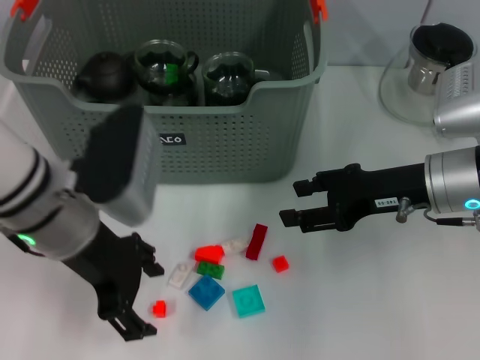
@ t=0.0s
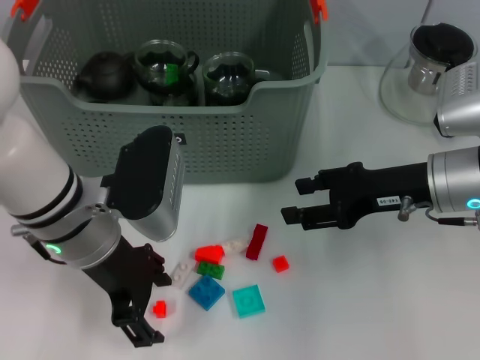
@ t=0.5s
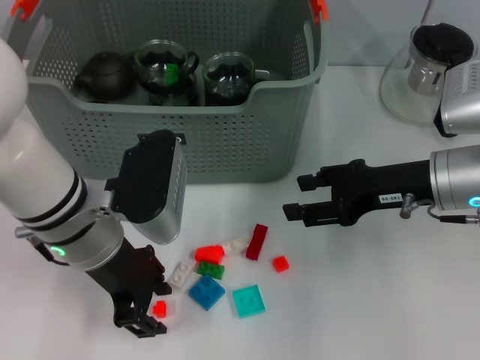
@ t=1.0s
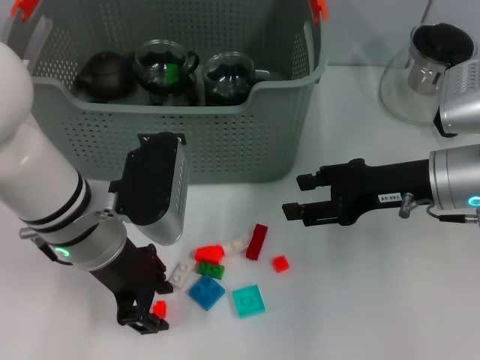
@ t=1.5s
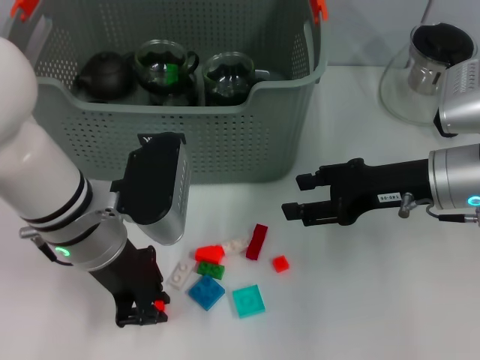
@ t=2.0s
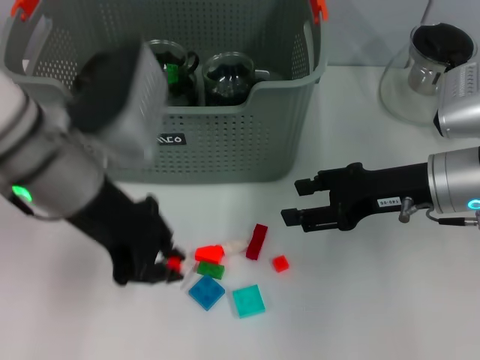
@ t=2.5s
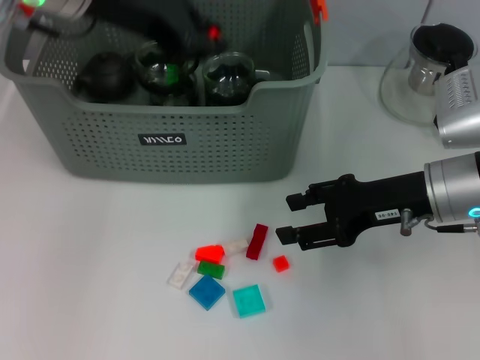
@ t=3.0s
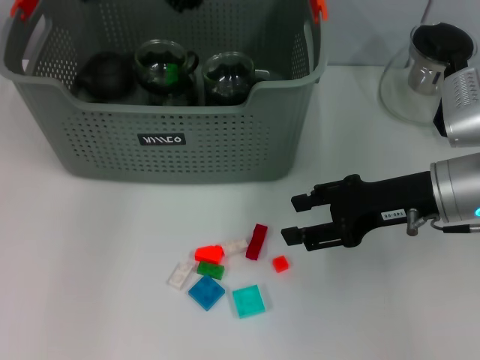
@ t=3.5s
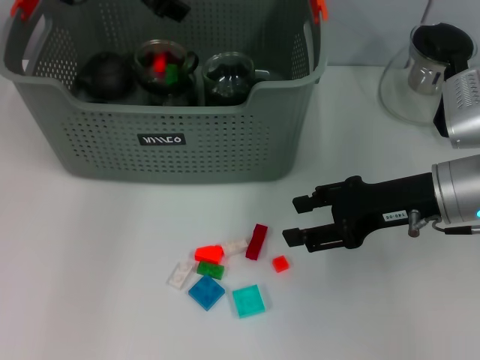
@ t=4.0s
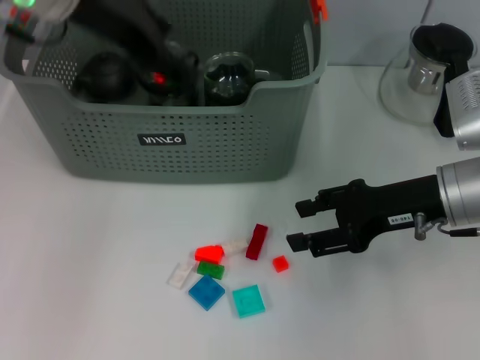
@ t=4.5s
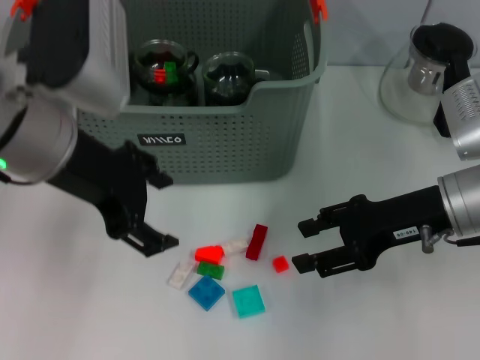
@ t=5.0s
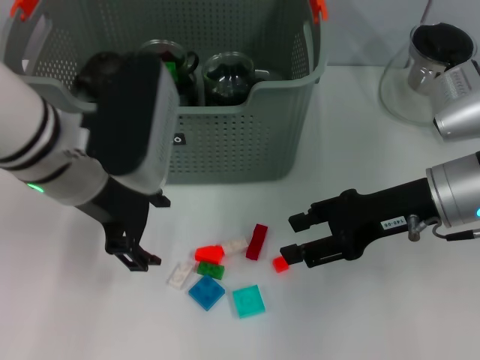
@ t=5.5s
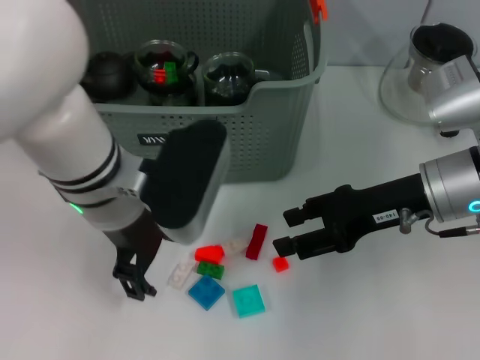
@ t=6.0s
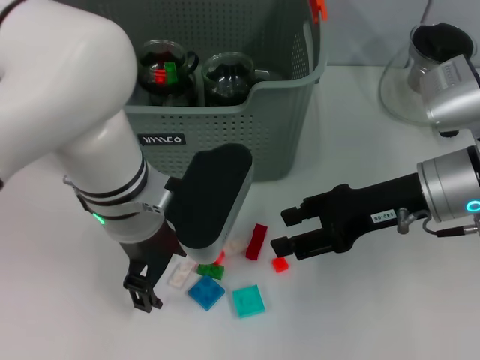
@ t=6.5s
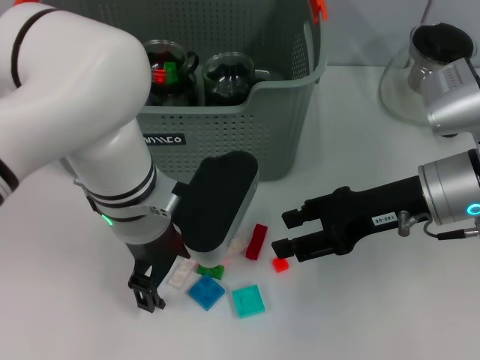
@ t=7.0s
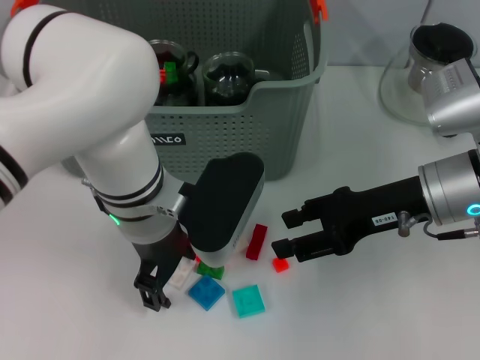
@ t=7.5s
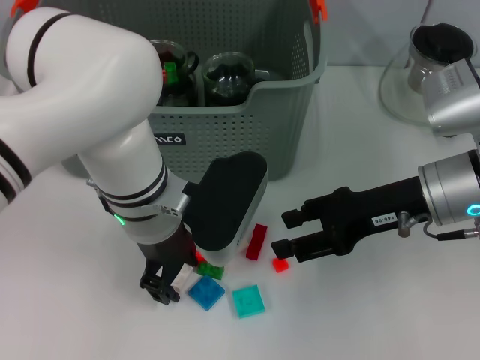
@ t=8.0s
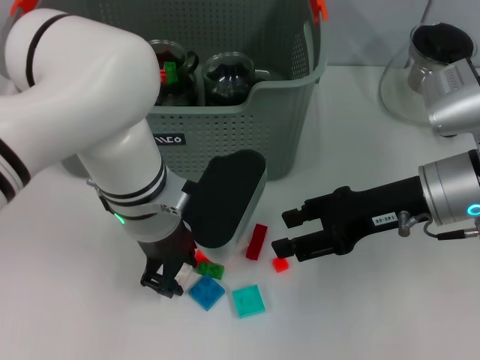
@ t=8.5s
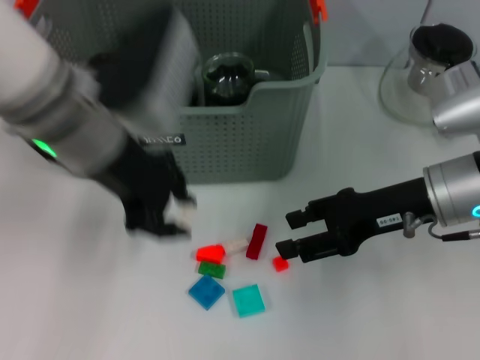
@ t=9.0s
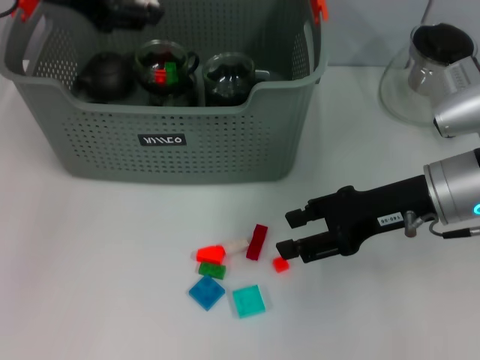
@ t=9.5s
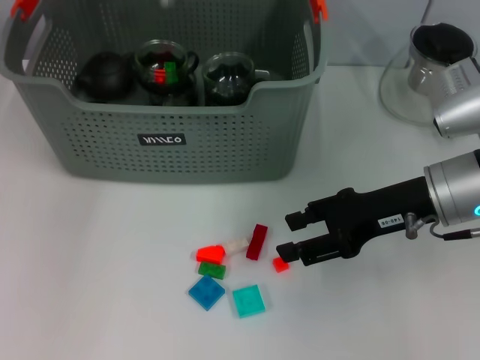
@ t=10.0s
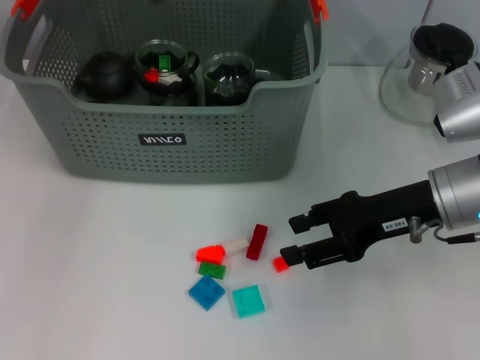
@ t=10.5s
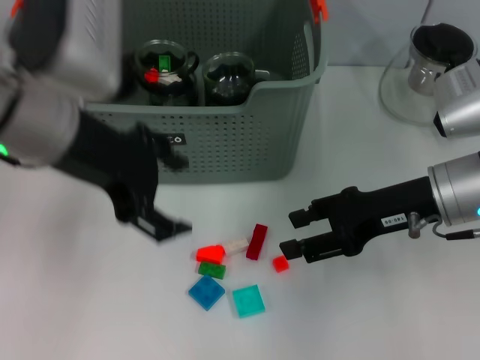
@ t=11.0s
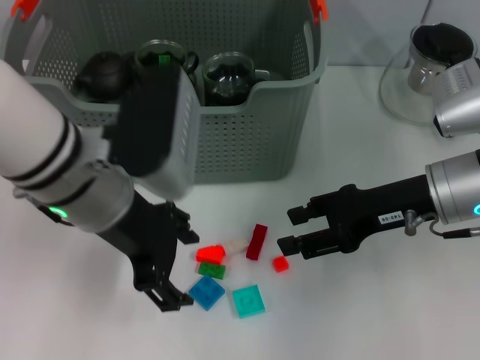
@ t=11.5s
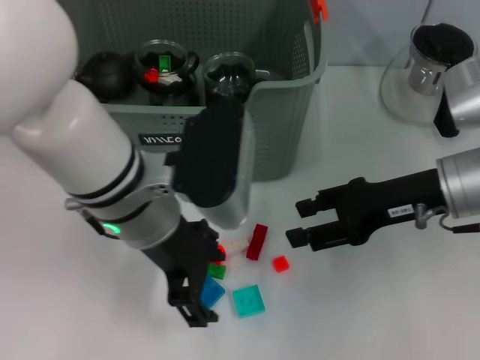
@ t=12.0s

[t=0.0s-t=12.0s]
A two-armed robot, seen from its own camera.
Task of the whole recording: pick up the teacup on the table and place it into the storage bin, pick up the block on the table and place it into the storage bin.
Step, t=2.0s to t=3.5s: Place the orange block in the storage box with left gripper.
Step, t=4.5s to t=8.0s: Grasp the white block with left gripper.
Step, t=8.5s to t=10.0s: Place the white block in the storage box with left gripper.
t=0.0s to t=2.0s: The left gripper closes up.
t=2.0s to t=4.0s: The left gripper shifts some 20 cm forward and upward.
t=4.0s to t=6.0s: The left gripper heads backward and downward, covering about 20 cm, and opens.
t=8.0s to t=10.0s: The left gripper shifts some 25 cm upward, forward and to the left.
t=10.0s to t=12.0s: The left gripper goes approximately 20 cm backward, downward and to the right, and opens up.

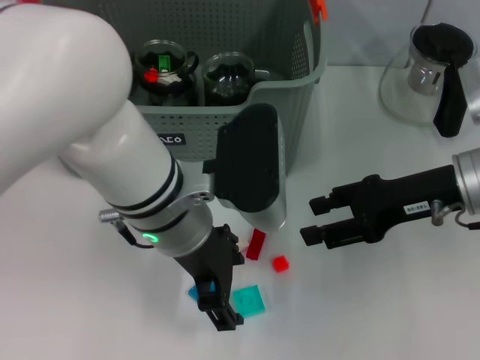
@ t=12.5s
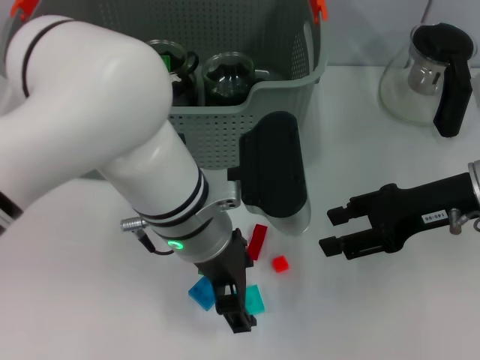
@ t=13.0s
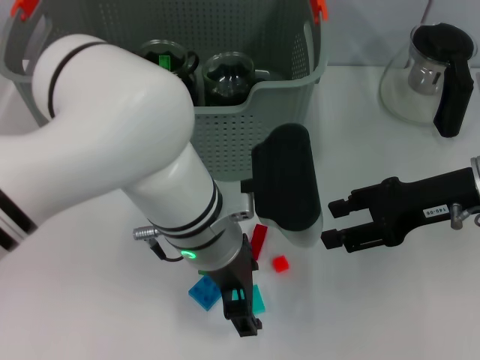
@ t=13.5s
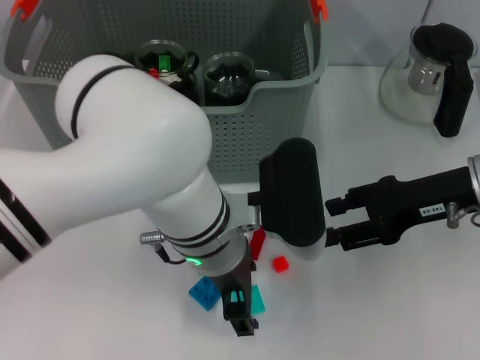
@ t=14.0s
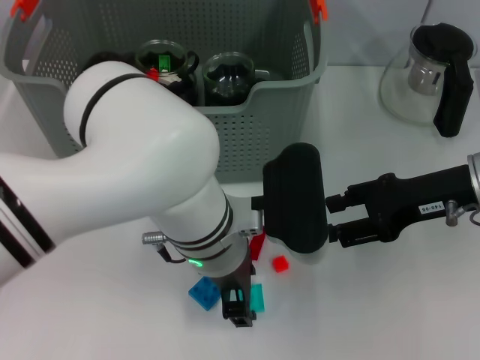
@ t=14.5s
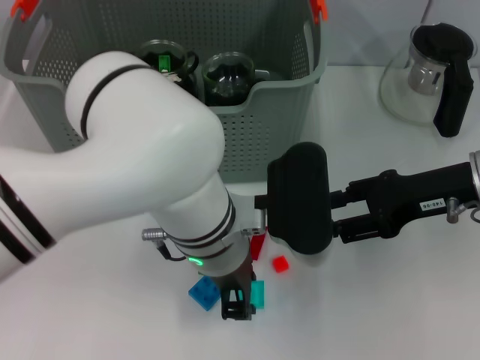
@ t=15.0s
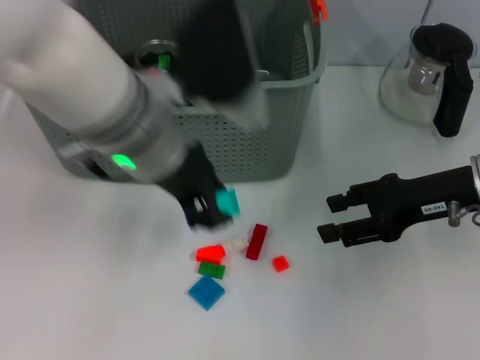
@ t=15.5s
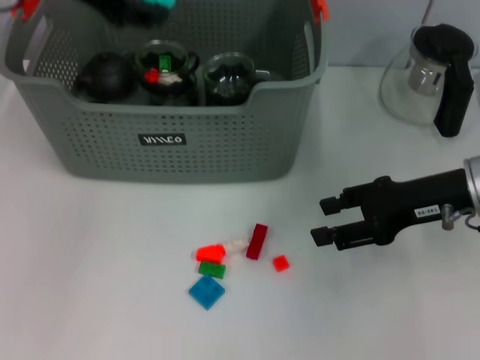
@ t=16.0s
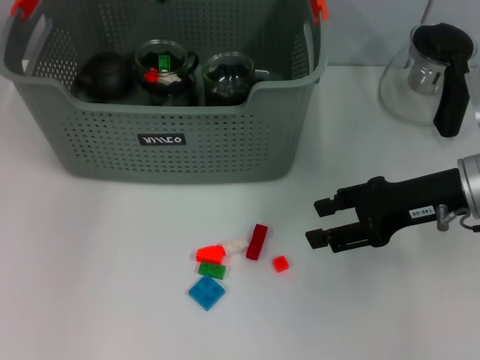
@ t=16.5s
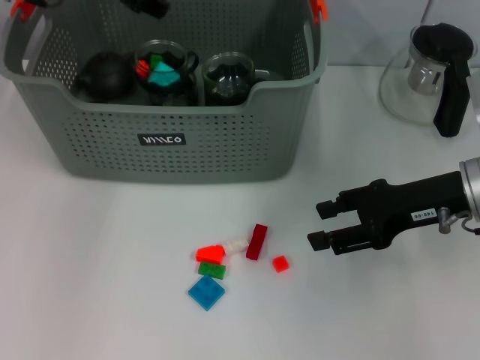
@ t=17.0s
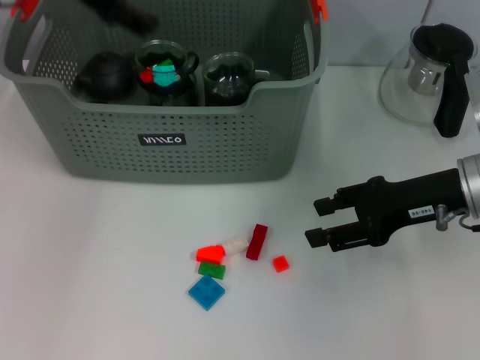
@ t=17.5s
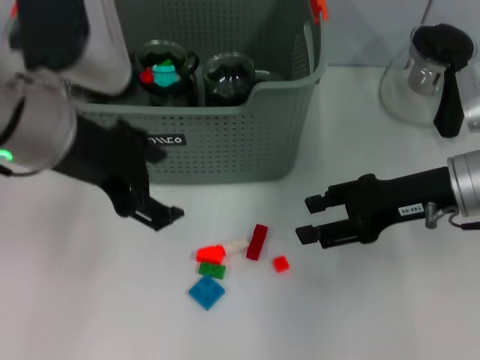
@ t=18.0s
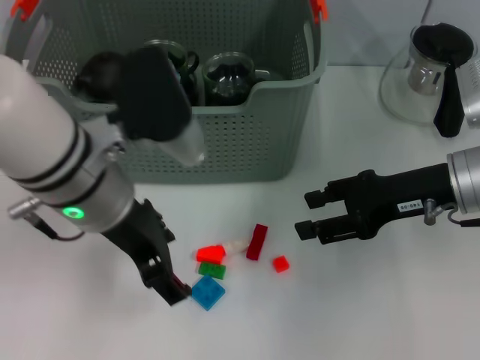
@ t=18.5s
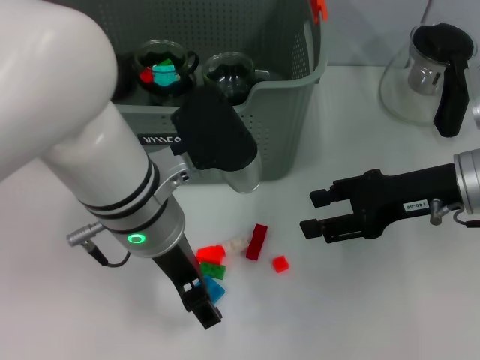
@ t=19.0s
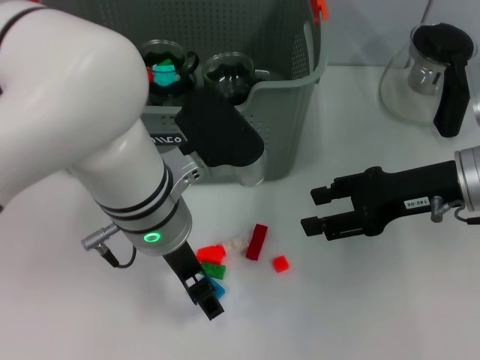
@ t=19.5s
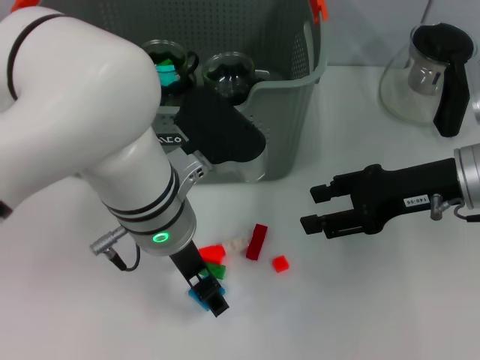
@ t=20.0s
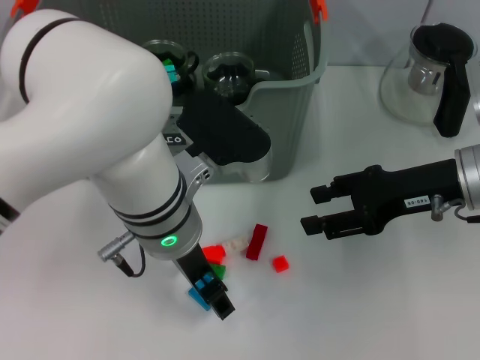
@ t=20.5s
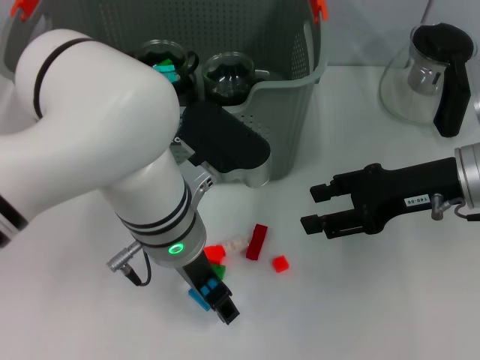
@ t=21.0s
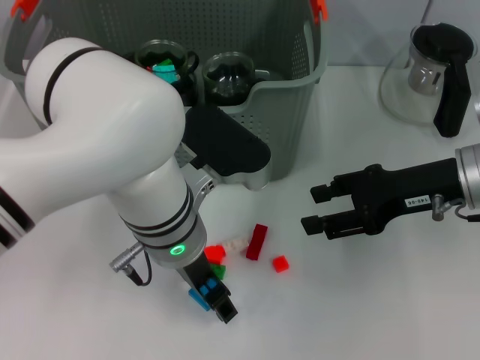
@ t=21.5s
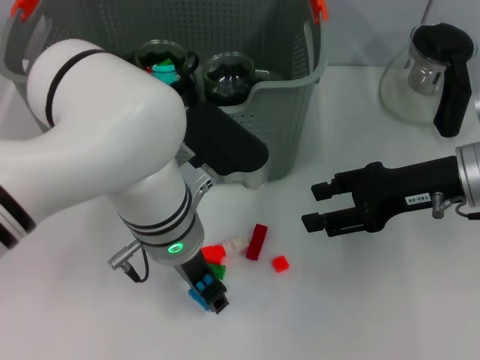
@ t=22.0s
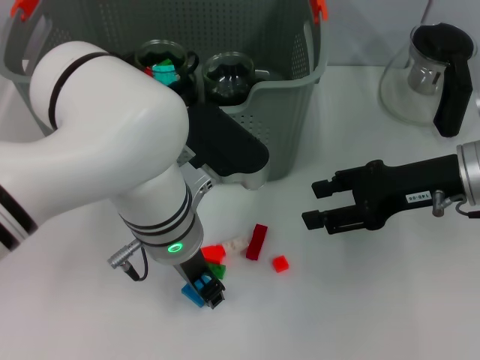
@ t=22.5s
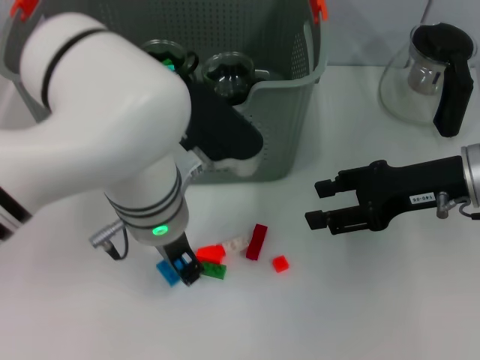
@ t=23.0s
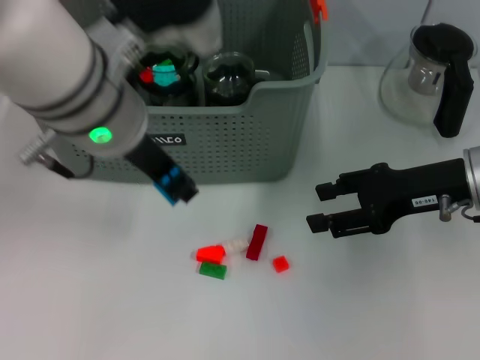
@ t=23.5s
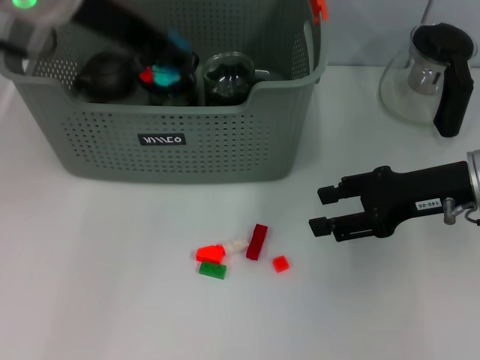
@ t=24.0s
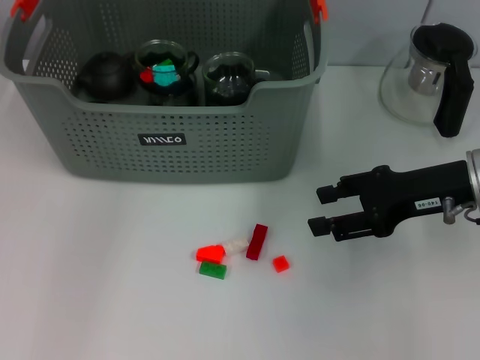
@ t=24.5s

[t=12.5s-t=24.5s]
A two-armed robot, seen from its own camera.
Task of the whole recording: pick up the teacup on the table and place it into the storage bin, pick up the block on the table and place it into the storage bin.
Step, t=12.5s to t=14.5s: Grasp the light blue block with left gripper.
Step, t=15.0s to t=17.0s: Place the light blue block in the storage box with left gripper.
Step, t=17.5s to t=22.5s: Grasp the dark blue block with left gripper.
t=12.5s to t=14.5s: The left gripper changes place by approximately 5 cm.
t=14.5s to t=16.5s: The left gripper goes about 30 cm forward, to the left and upward, and closes its fingers.
t=16.5s to t=18.5s: The left gripper goes approximately 20 cm backward and downward, and opens.
t=18.5s to t=20.5s: The left gripper heads to the right, covering about 5 cm.
t=20.5s to t=22.5s: There are only small adjustments of the grippers.
t=22.5s to t=24.5s: The left gripper heads upward, forward and to the left, covering roughly 25 cm.

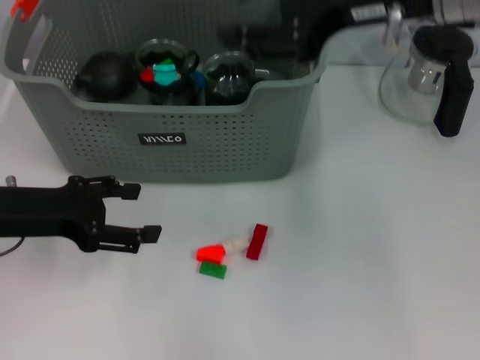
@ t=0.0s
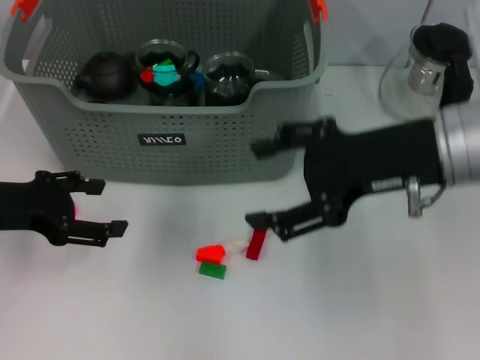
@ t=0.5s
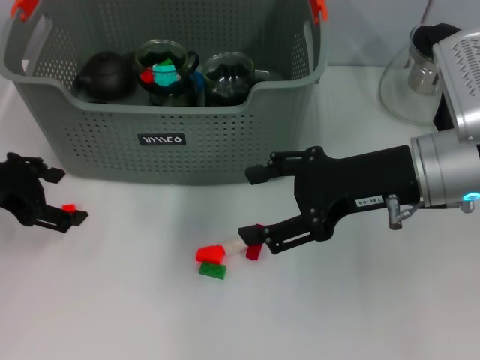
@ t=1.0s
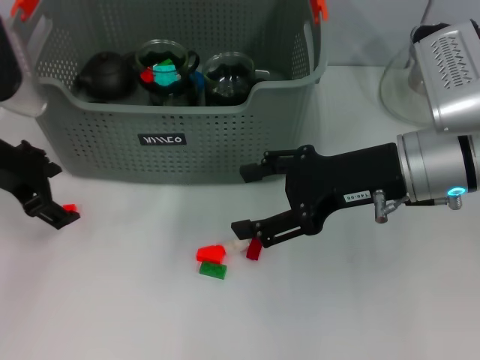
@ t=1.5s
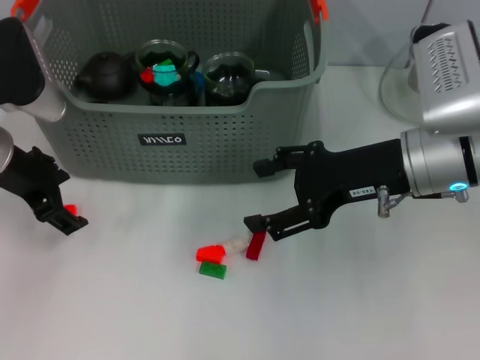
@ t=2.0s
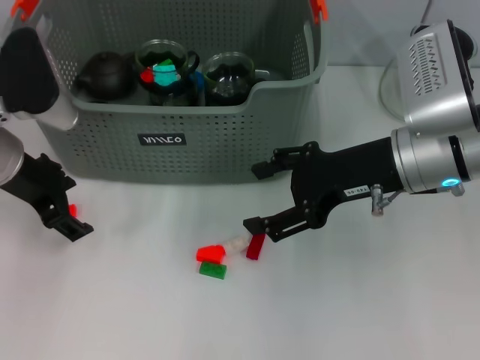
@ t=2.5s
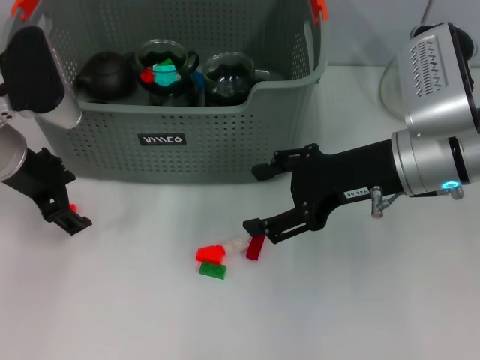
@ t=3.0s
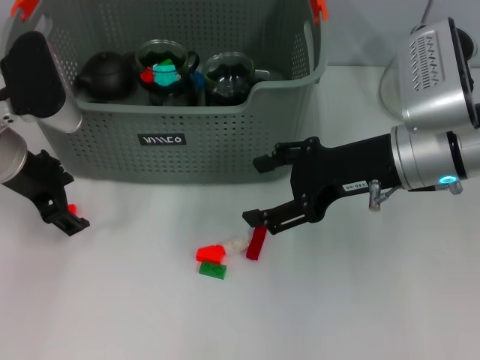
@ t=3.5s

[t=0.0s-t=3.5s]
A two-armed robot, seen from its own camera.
Task of the whole recording: pick up the teacup on the table and place it into the storage bin, pick up the block on the table and place it into the storage bin.
t=0.0s to t=2.0s: The right gripper goes roughly 15 cm downward, and opens. Meanwhile the left gripper heads forward, covering approximately 5 cm.
t=2.0s to t=3.5s: The grippers make only small movements.
